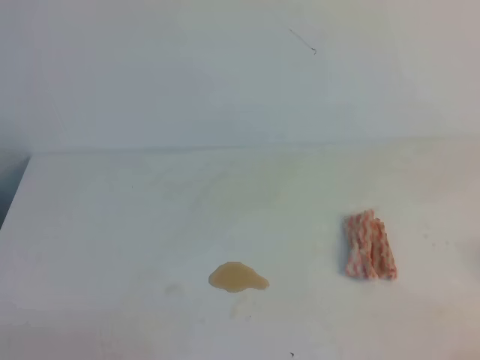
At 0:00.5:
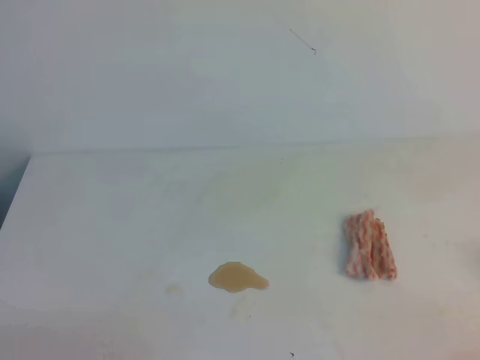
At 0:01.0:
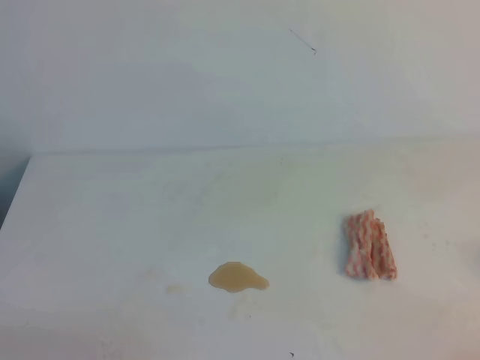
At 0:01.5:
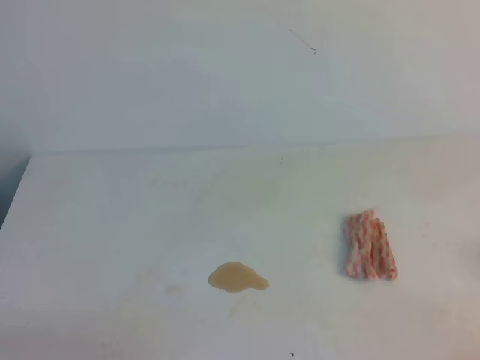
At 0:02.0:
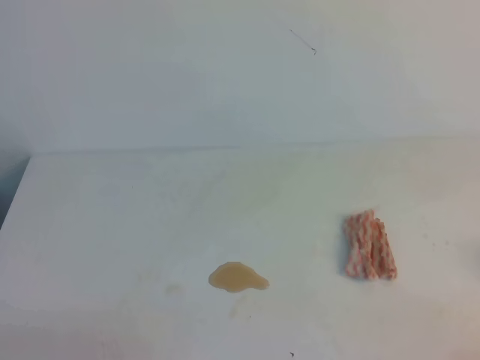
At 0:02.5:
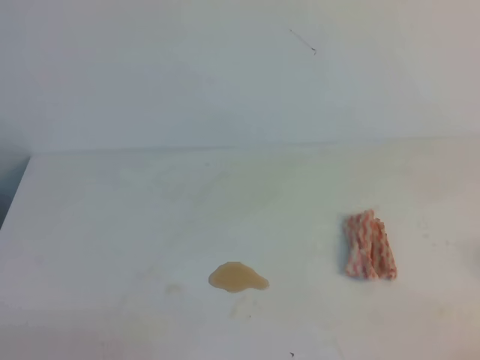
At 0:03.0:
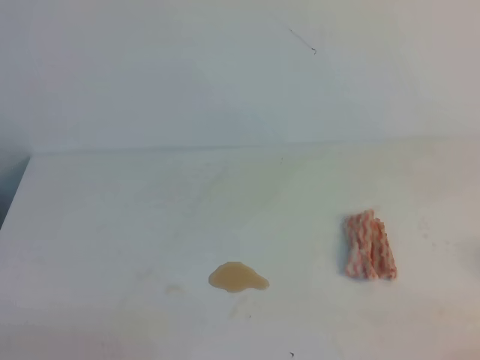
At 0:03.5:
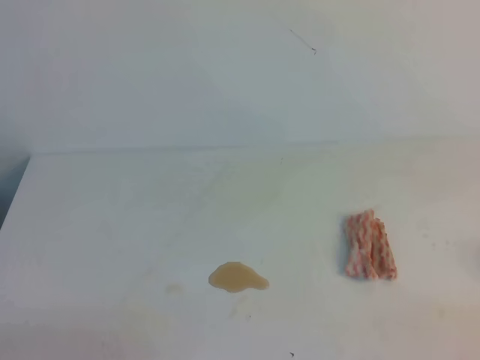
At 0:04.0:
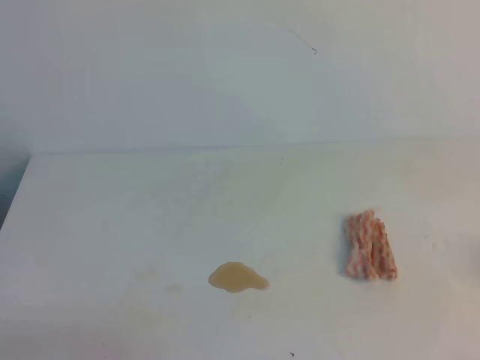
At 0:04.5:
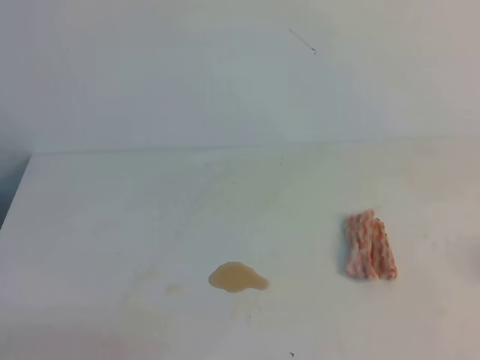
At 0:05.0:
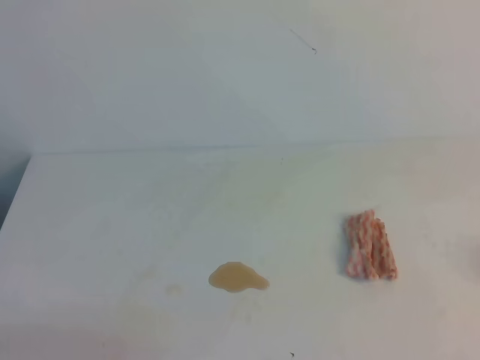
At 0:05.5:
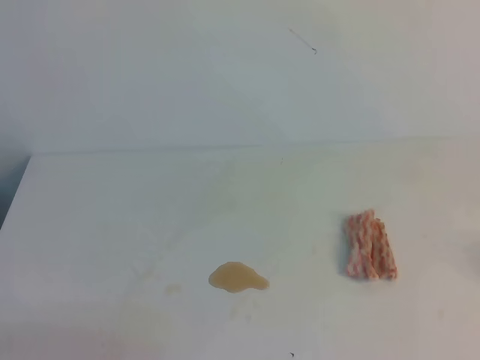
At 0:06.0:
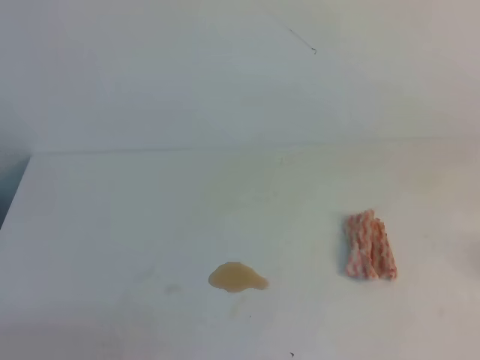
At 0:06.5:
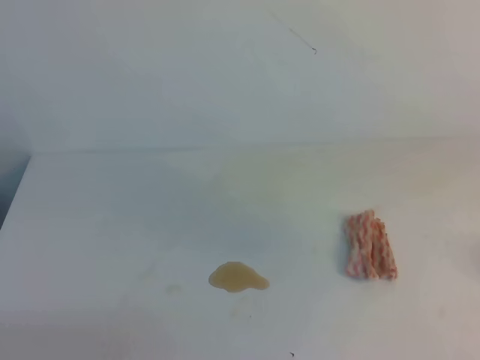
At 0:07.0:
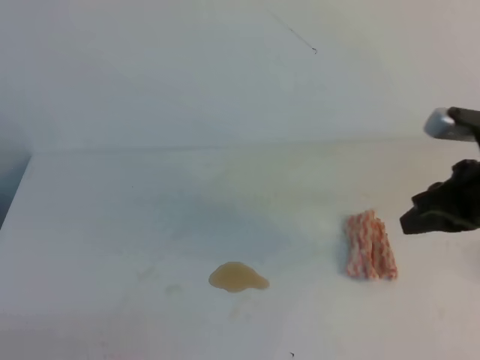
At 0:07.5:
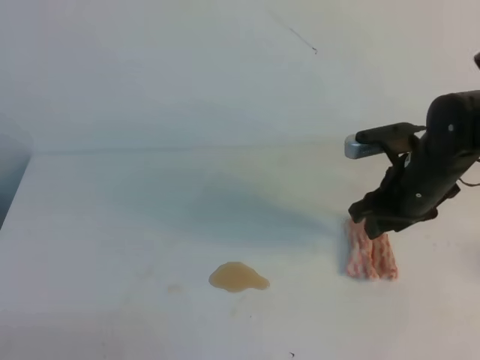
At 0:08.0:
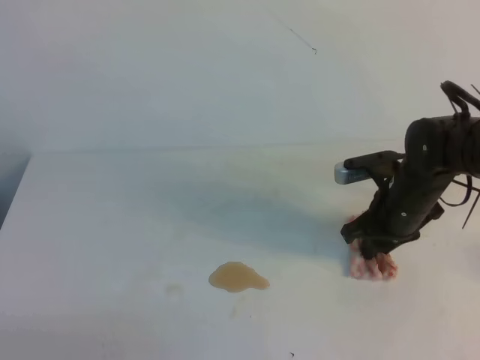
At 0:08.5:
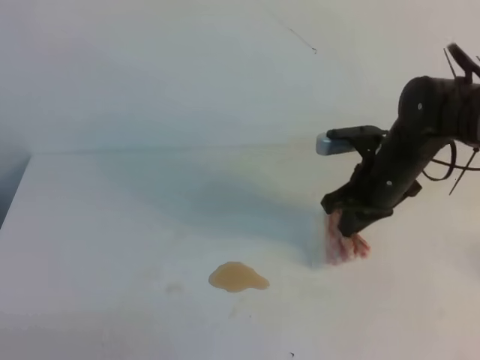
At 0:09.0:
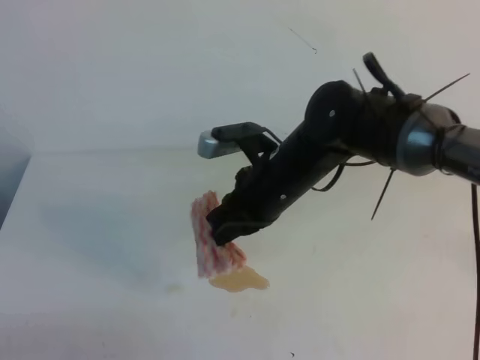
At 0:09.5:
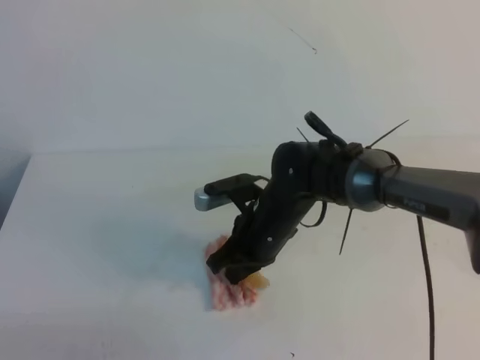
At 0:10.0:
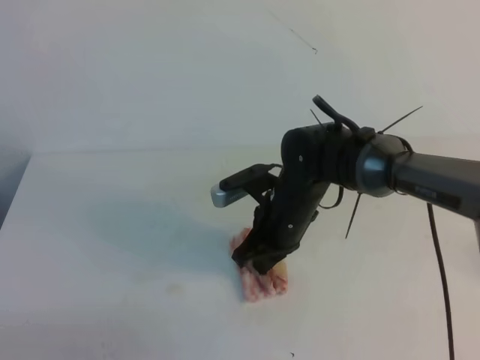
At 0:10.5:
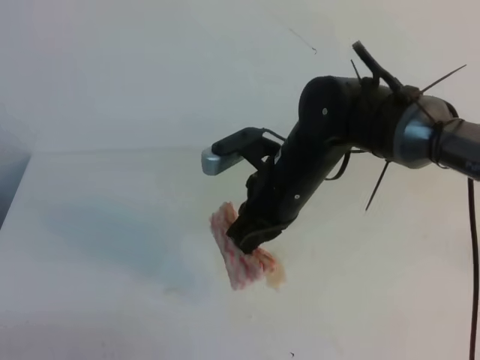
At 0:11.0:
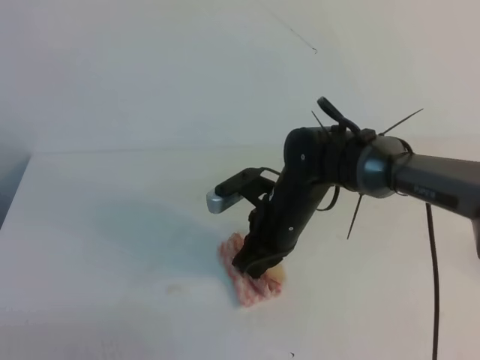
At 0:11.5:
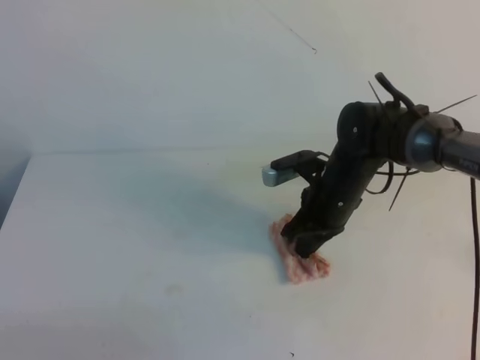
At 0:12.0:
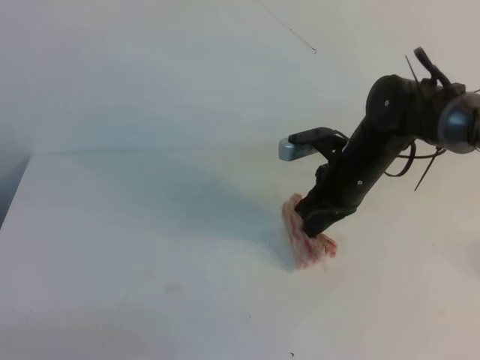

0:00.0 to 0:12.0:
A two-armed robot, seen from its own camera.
0:00.0 to 0:02.0: Both grippers stay about where they are.
0:06.0 to 0:08.0: The right gripper goes some 40 cm downward, forward and to the left, and opens.
0:08.0 to 0:10.0: The right gripper heads to the left, covering some 15 cm, and closes up.
0:10.0 to 0:12.0: The right gripper heads to the right, covering approximately 10 cm.

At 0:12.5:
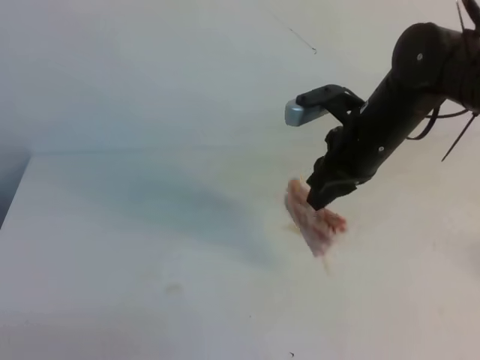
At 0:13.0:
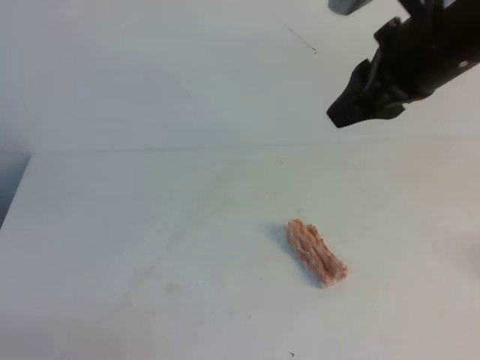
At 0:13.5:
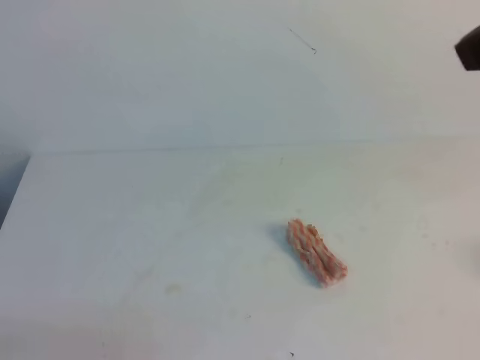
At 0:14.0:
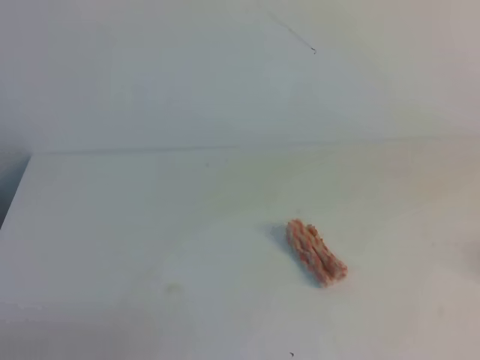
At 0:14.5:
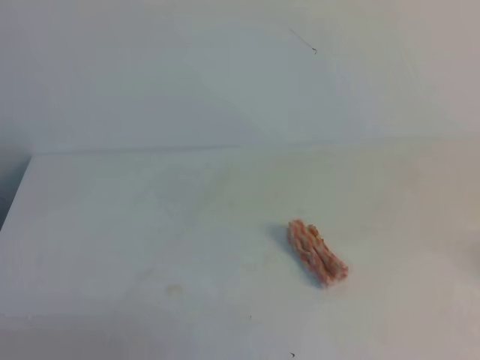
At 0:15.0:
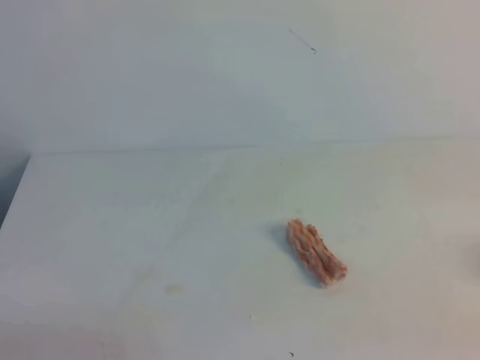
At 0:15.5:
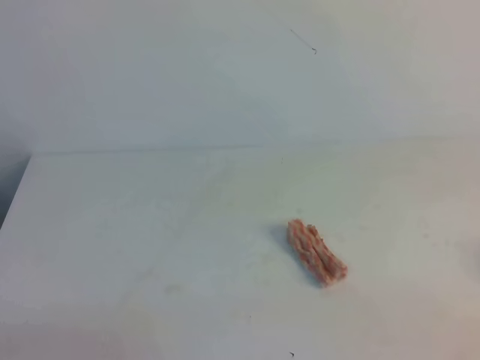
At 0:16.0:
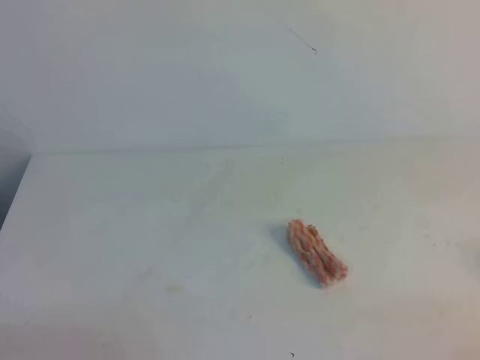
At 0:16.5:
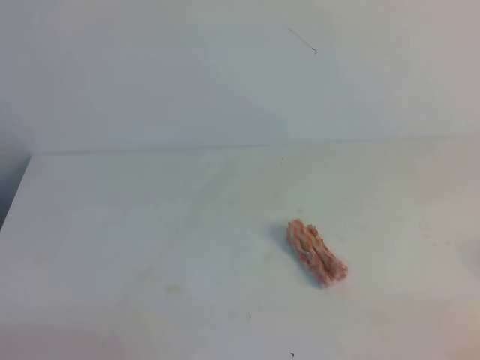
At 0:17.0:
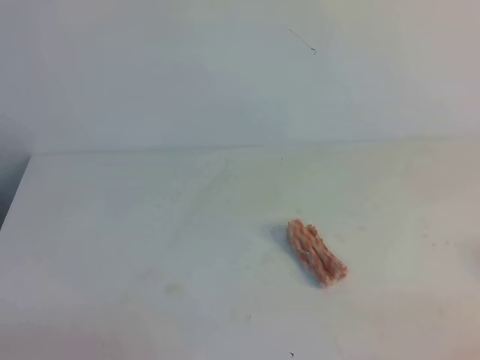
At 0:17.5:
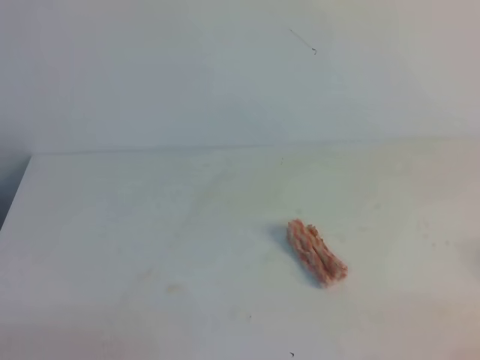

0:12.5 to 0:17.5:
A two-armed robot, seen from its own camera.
0:12.5 to 0:15.0: The right gripper heads backward and to the right, covering some 35 cm, and closes its fingers.

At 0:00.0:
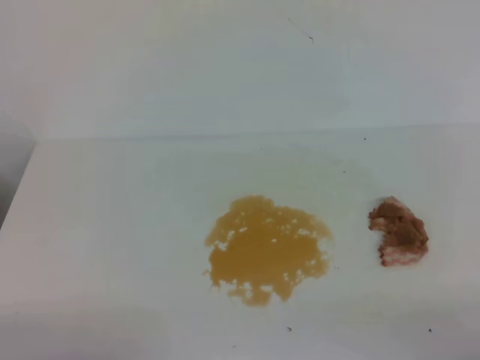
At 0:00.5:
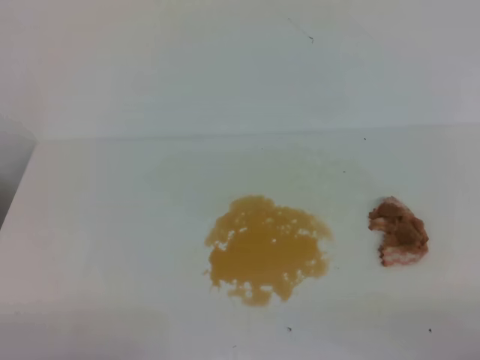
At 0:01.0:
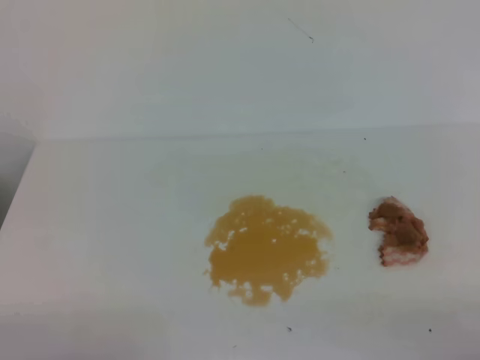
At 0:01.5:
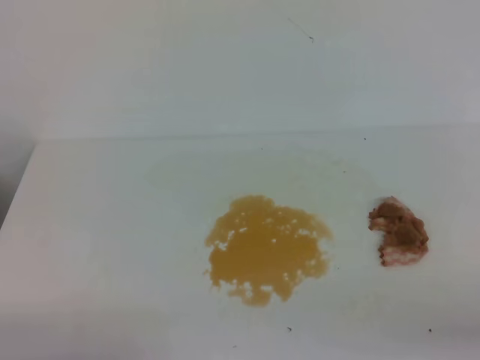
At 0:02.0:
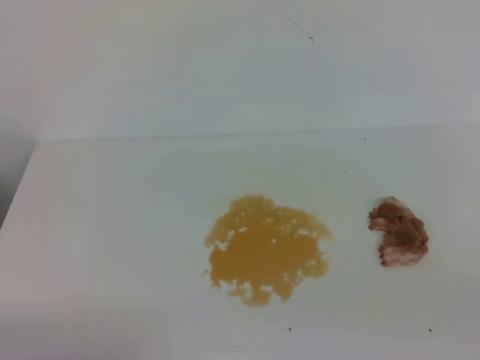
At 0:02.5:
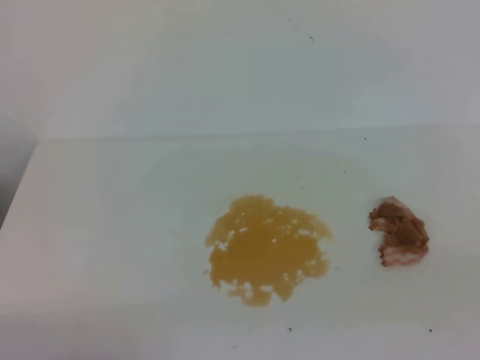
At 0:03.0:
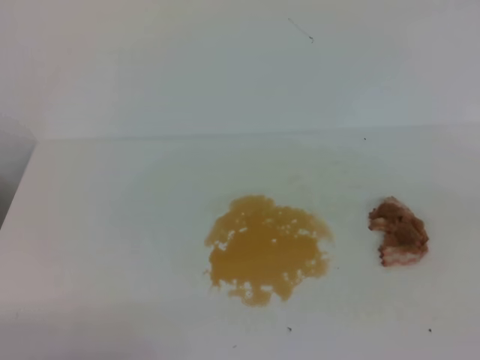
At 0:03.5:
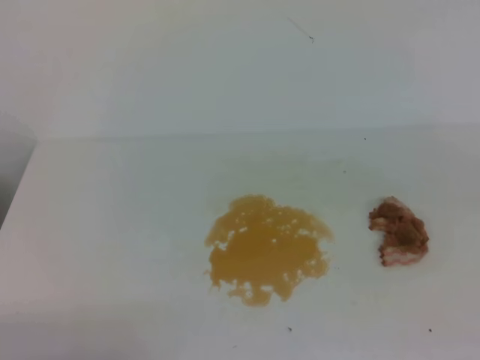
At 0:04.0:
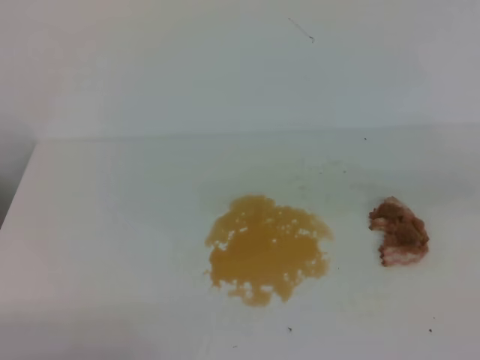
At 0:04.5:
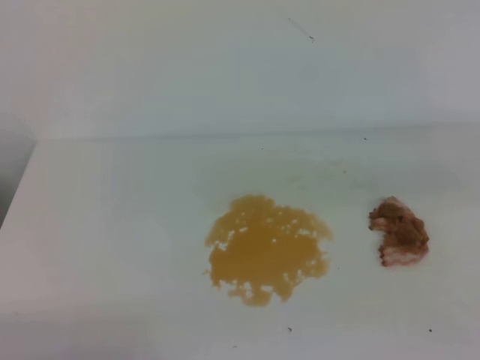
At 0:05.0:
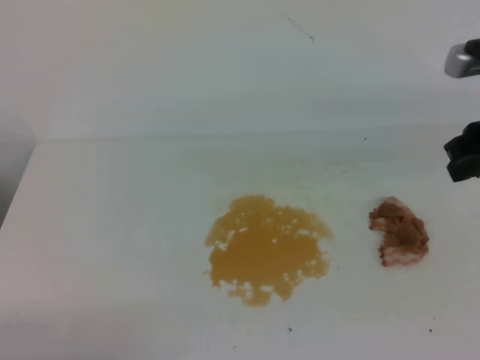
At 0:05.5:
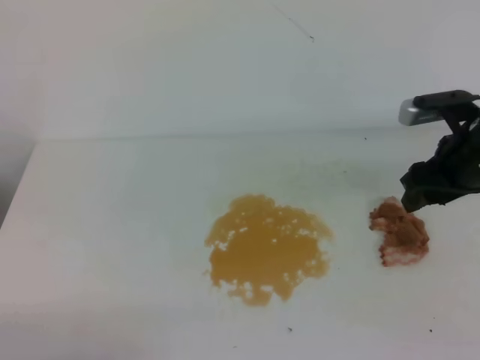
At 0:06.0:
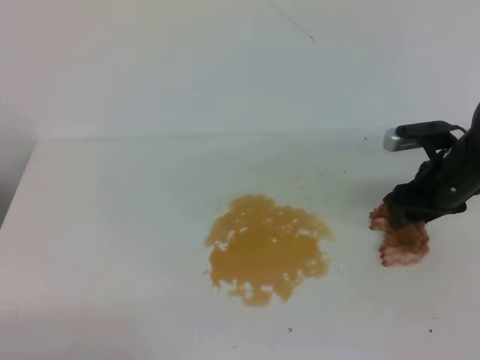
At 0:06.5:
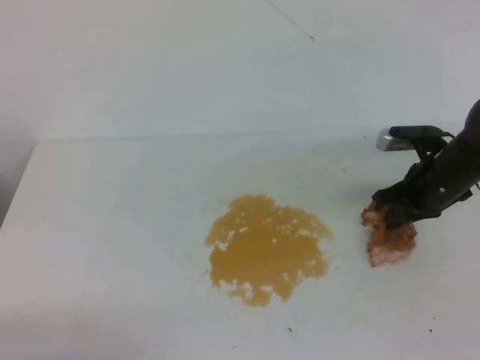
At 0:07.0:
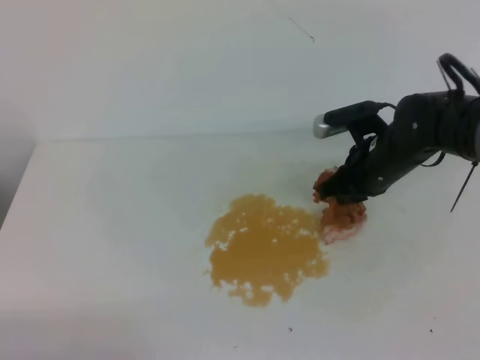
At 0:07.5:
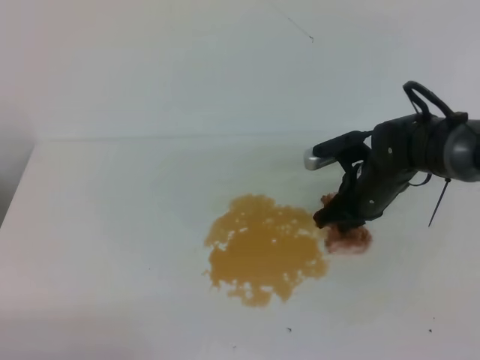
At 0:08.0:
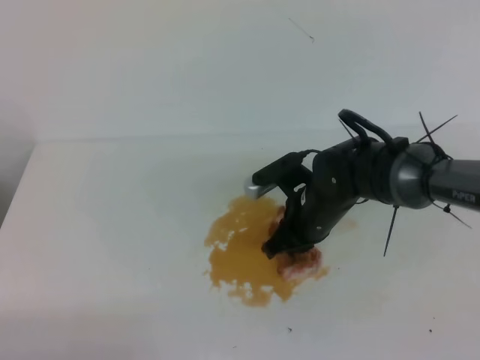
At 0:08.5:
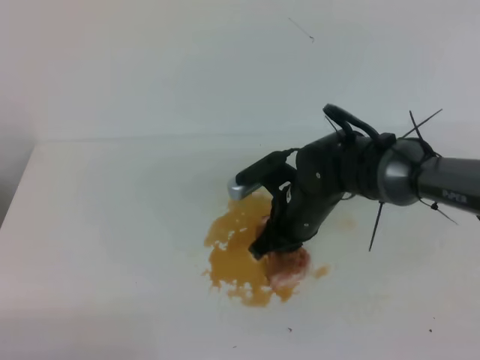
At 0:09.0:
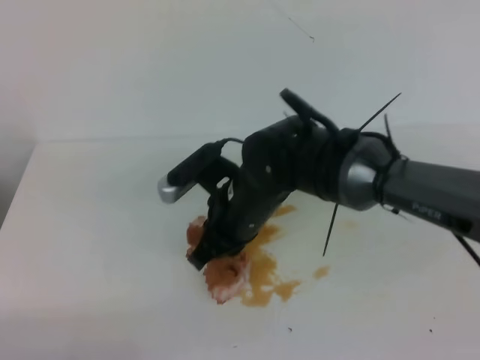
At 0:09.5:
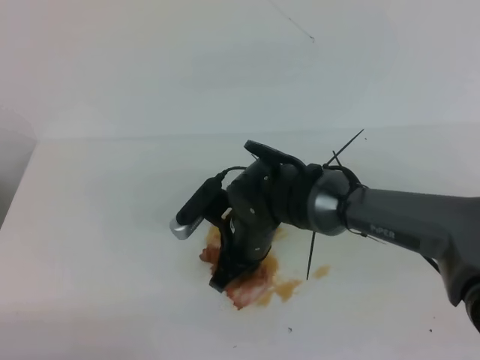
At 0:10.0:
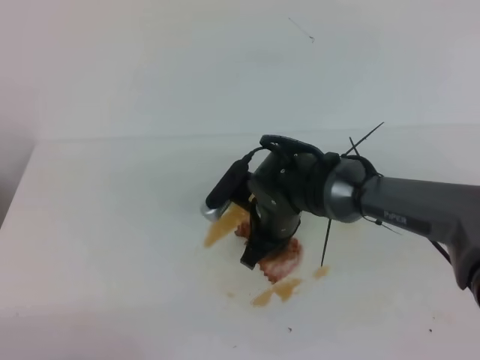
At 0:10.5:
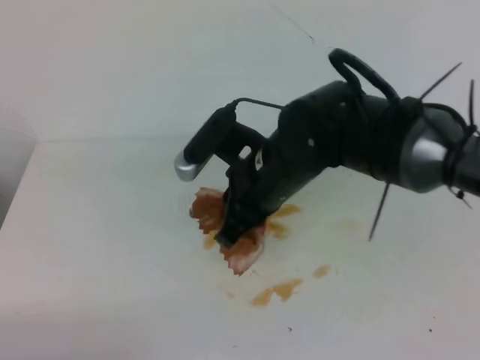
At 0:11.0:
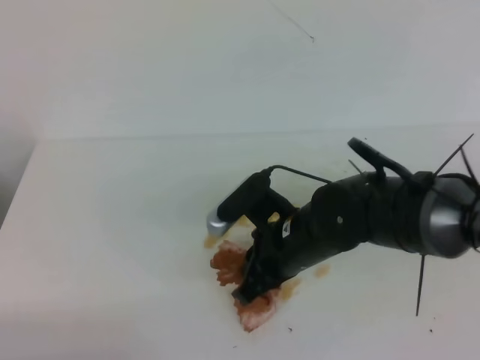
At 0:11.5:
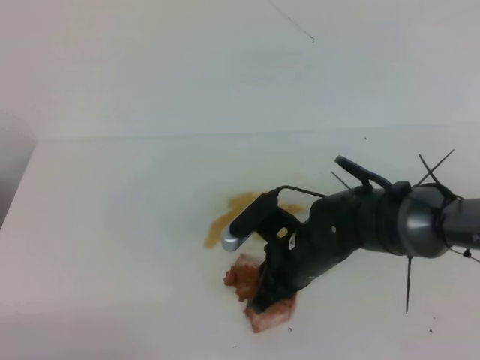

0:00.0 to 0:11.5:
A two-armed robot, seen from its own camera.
0:04.0 to 0:06.0: The right gripper shifts approximately 25 cm forward and downward, and opens up.
0:06.0 to 0:07.5: The right gripper shifts roughly 10 cm to the left, and closes its fingers.
0:07.5 to 0:09.5: The right gripper heads to the left and backward, covering approximately 15 cm.
0:09.5 to 0:11.5: The right gripper moves to the right, about 5 cm, and reaches some 10 cm upward, then returns.
